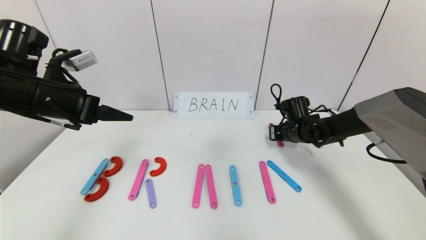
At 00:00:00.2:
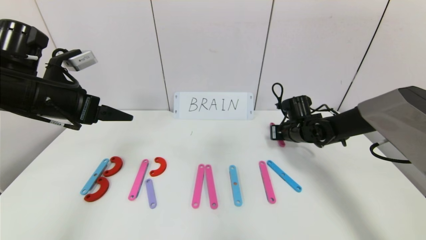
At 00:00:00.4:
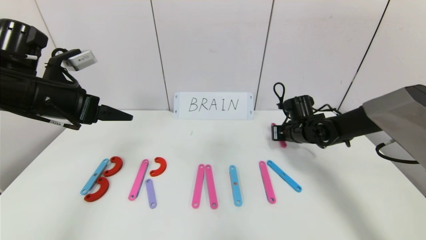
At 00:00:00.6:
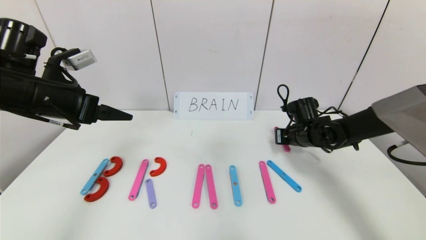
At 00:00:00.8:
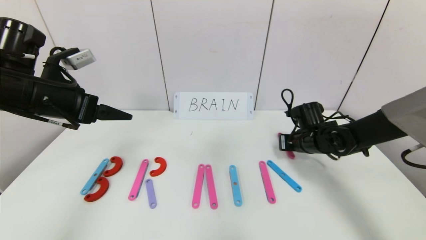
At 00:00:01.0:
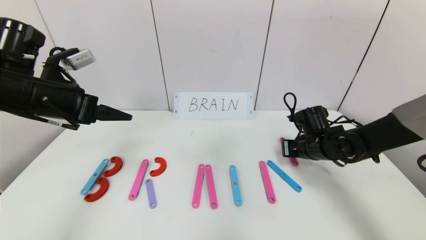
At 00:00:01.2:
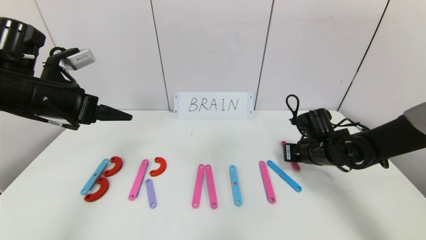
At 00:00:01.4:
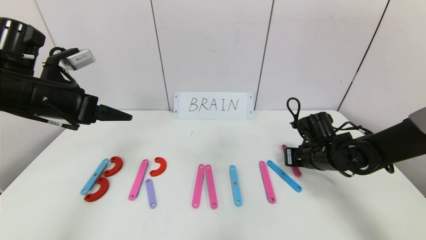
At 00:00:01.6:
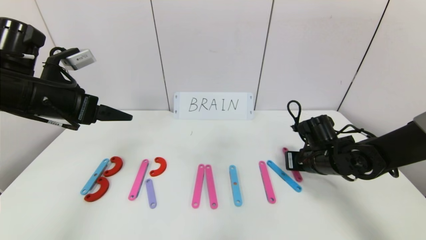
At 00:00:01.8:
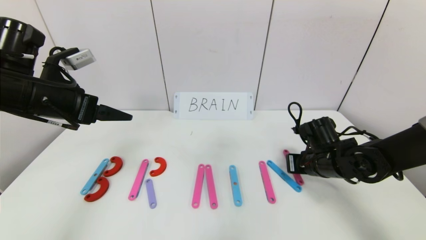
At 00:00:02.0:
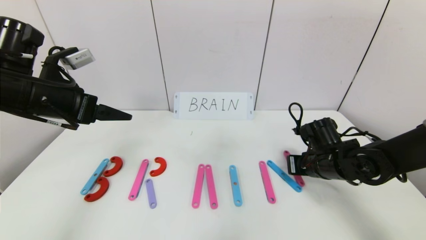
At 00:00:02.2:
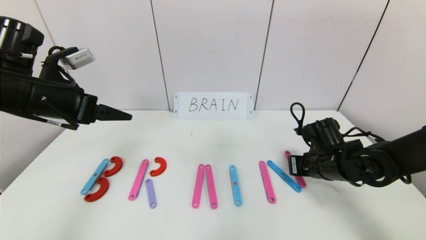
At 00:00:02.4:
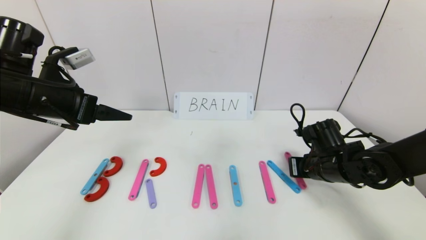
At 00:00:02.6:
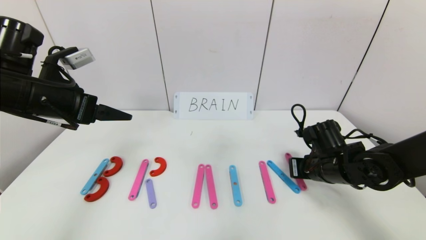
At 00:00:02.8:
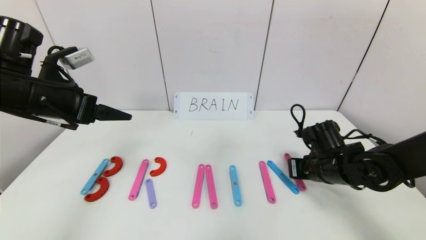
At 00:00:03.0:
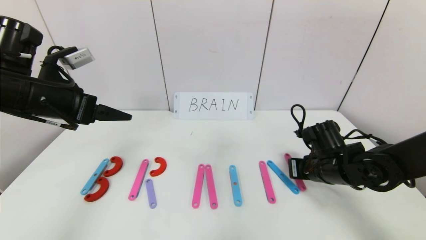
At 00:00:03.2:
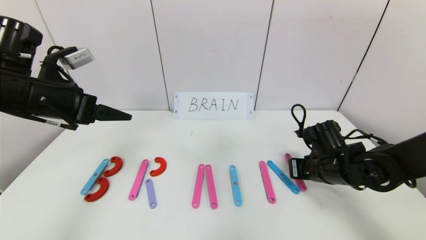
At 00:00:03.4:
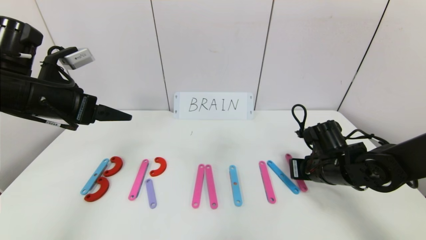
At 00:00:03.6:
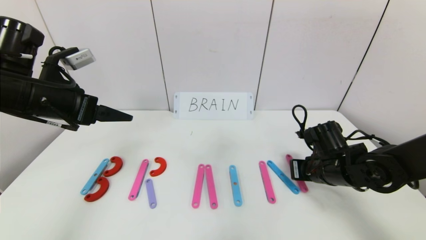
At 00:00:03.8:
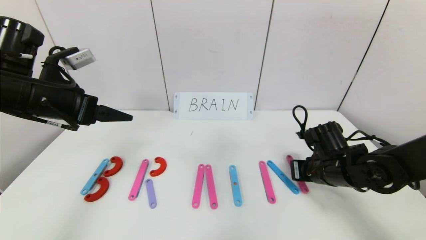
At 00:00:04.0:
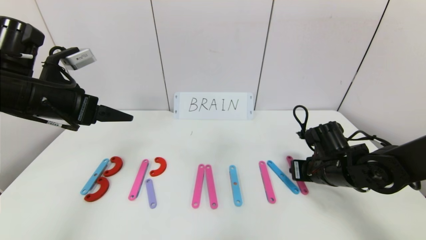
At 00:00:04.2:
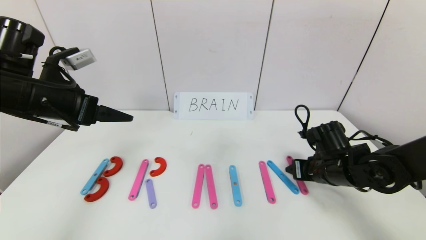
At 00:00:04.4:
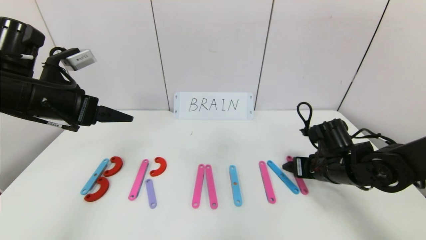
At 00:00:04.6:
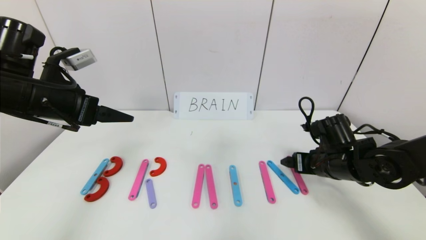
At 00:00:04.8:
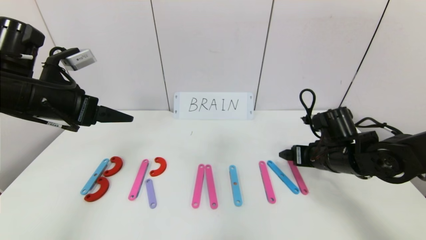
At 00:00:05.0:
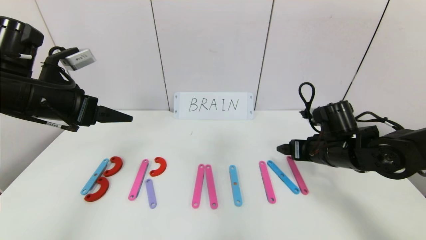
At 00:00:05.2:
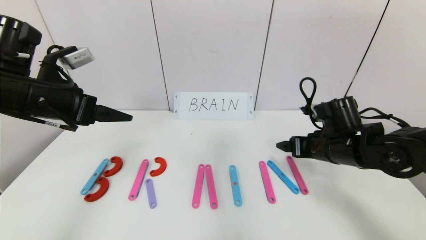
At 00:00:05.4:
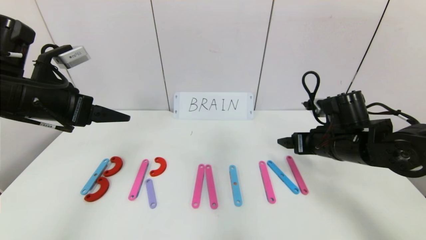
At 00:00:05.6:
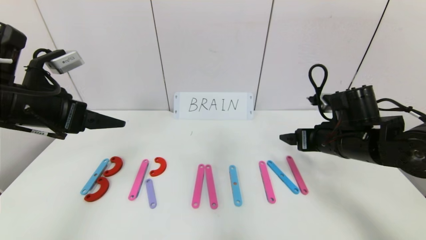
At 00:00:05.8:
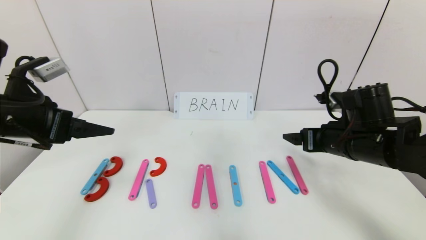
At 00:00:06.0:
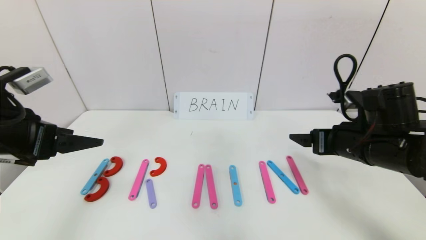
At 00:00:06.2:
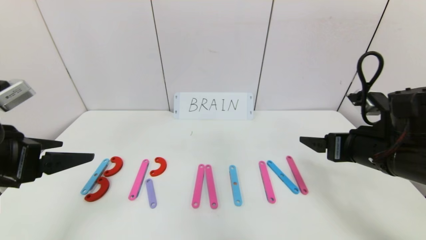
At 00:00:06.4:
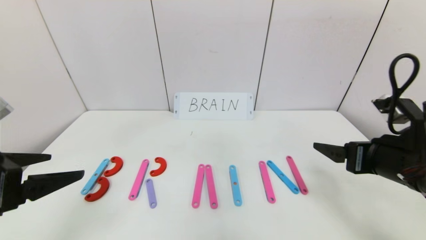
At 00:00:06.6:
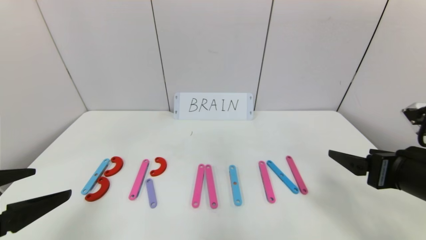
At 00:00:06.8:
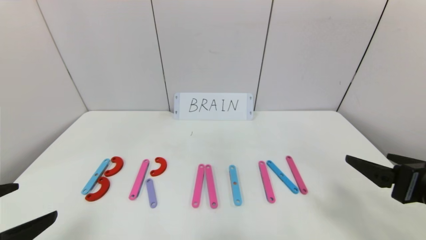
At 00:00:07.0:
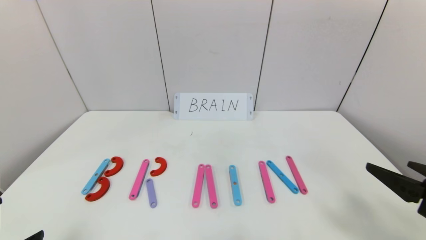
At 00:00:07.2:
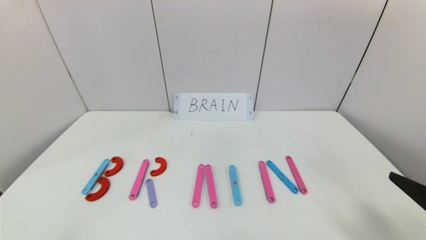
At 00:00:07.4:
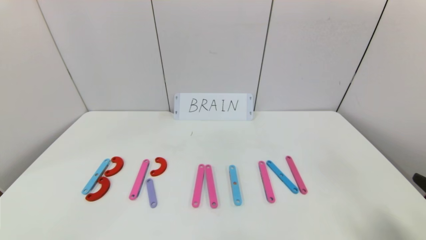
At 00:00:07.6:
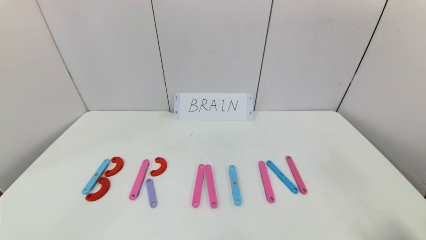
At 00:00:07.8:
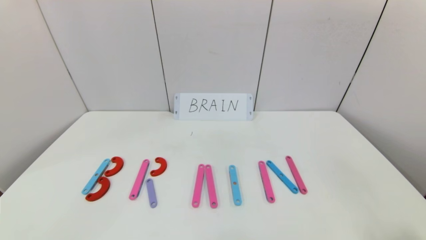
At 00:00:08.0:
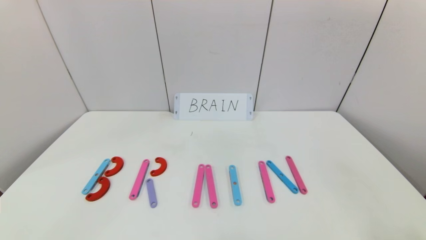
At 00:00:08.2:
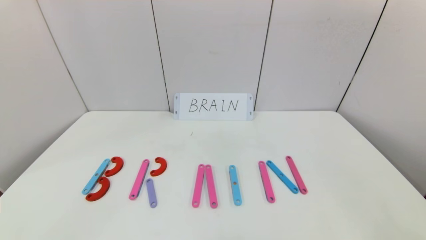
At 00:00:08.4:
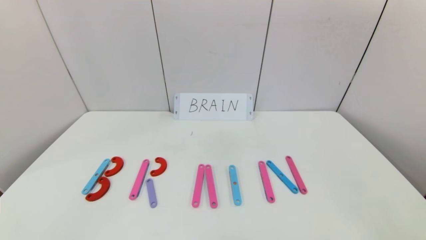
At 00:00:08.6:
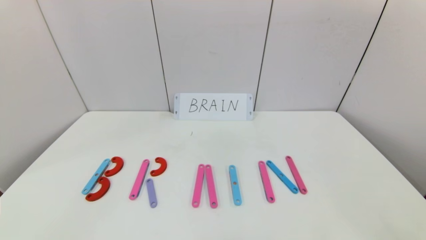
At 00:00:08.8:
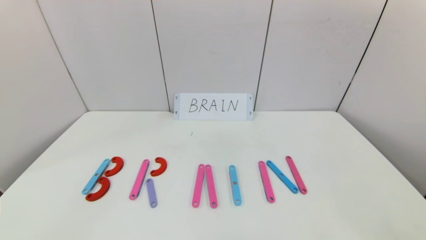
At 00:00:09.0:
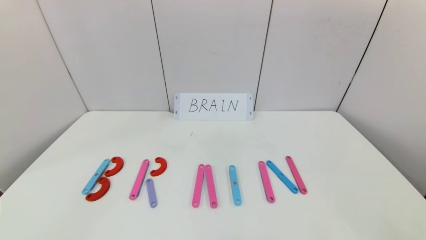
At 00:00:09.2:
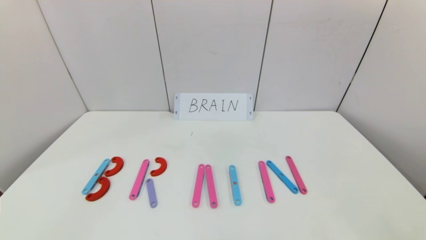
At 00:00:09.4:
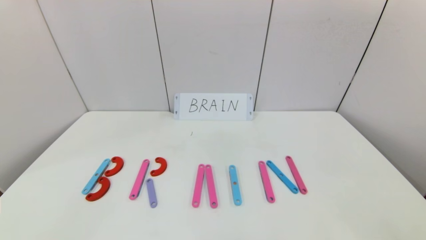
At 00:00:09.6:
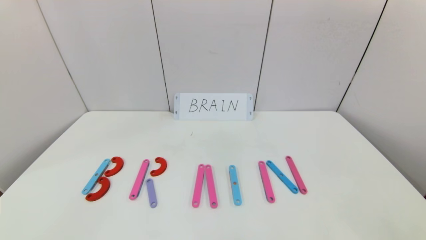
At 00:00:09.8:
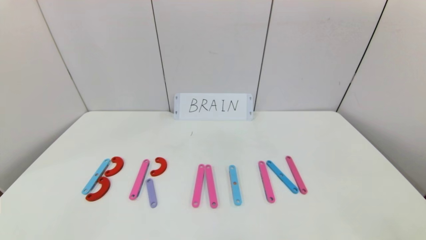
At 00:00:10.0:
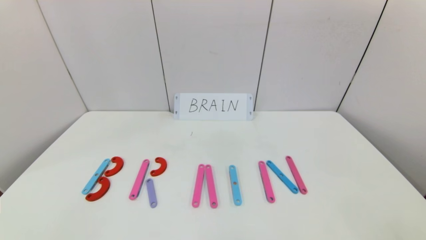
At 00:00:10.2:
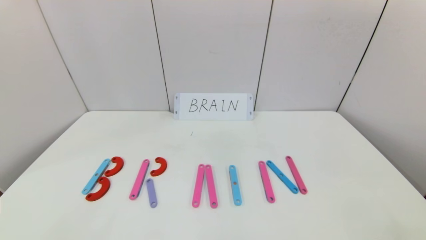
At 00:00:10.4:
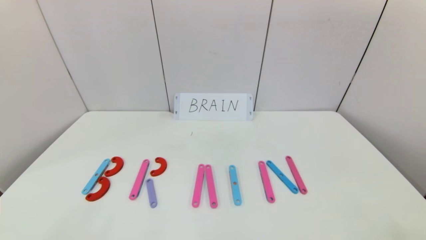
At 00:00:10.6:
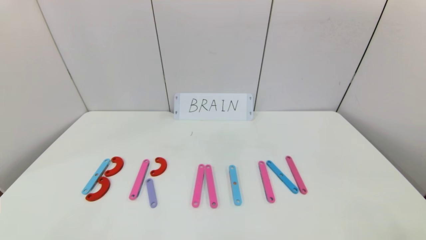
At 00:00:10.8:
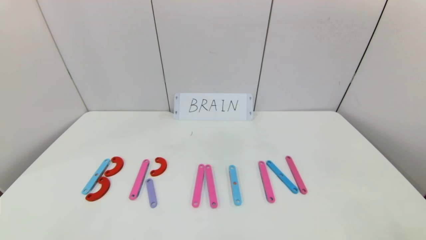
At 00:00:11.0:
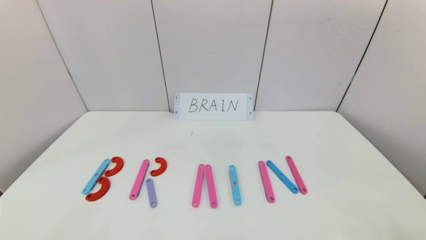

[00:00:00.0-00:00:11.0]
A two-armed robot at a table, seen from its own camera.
Task of the whole recording: rearrange the word baai as brain.
Step, 00:00:00.0 to 00:00:04.2: Place the character N after character I.
00:00:00.0 to 00:00:01.6: The right gripper travels backward by approximately 10 cm.
00:00:01.6 to 00:00:03.2: There are only small adjustments of the grippers.
00:00:03.2 to 00:00:04.8: The right gripper opens up.
00:00:04.8 to 00:00:06.2: The right gripper is displaced backward and upward by some 10 cm. Meanwhile the left gripper is displaced backward by roughly 10 cm.
00:00:06.2 to 00:00:07.8: The grippers both shift backward by roughly 20 cm.
